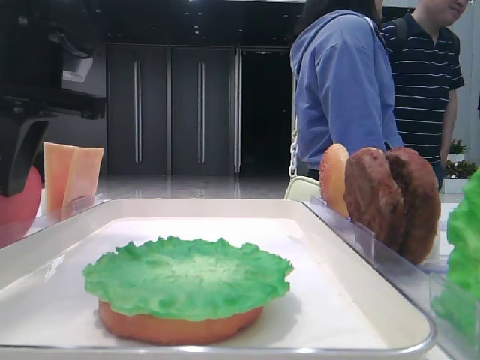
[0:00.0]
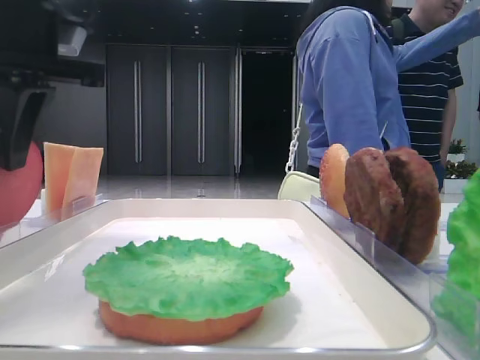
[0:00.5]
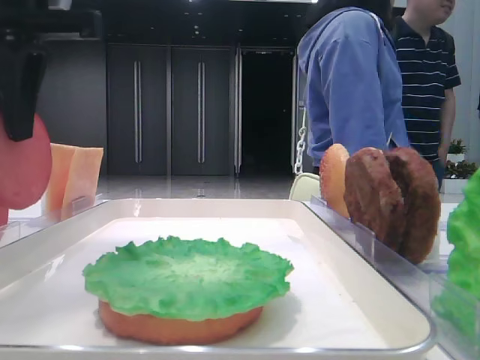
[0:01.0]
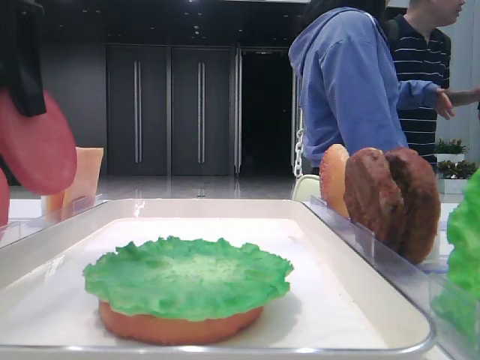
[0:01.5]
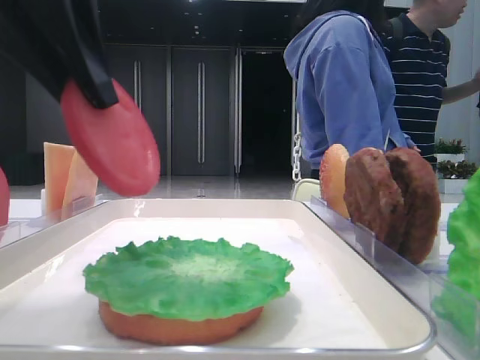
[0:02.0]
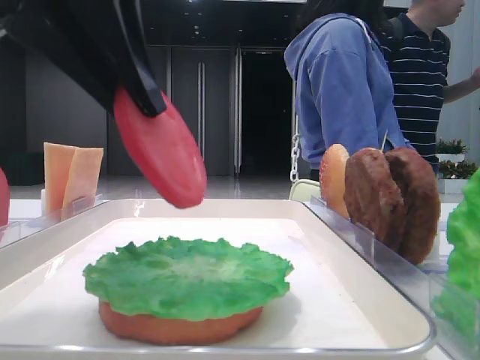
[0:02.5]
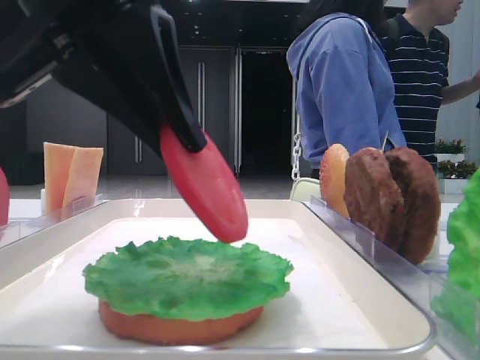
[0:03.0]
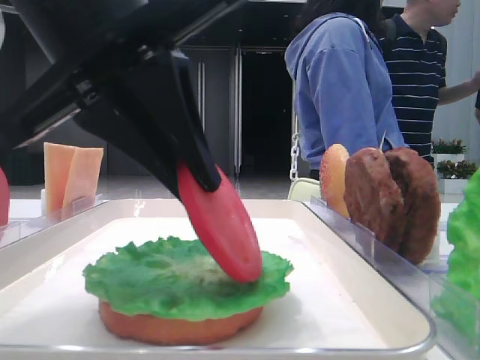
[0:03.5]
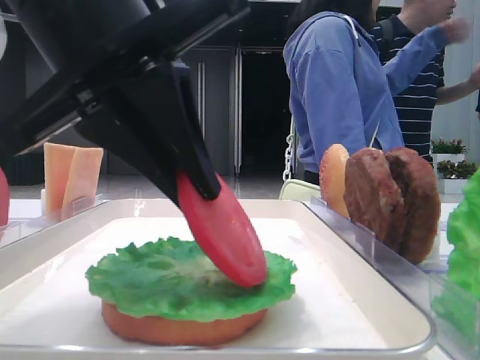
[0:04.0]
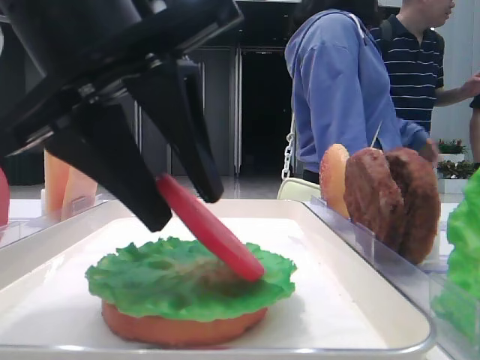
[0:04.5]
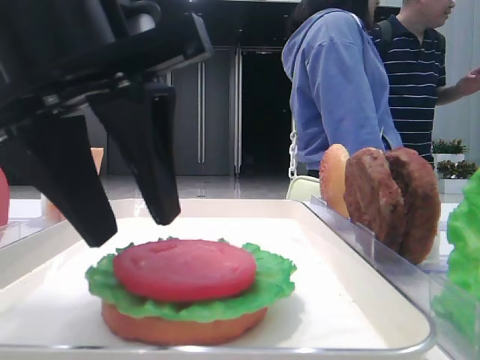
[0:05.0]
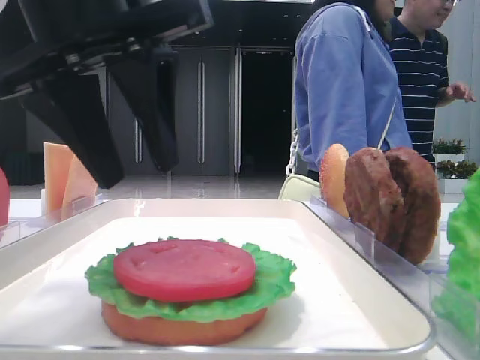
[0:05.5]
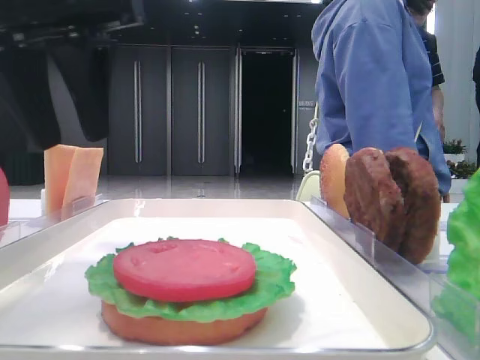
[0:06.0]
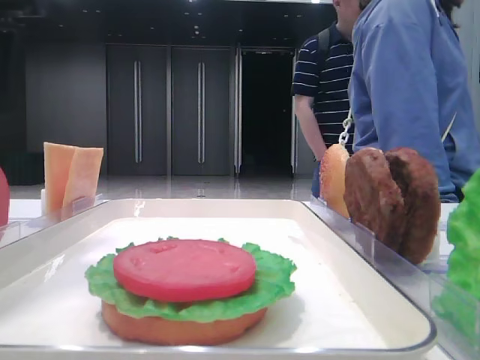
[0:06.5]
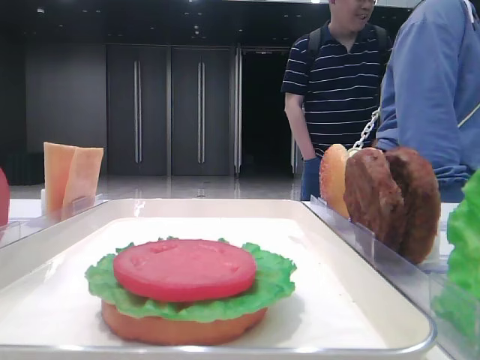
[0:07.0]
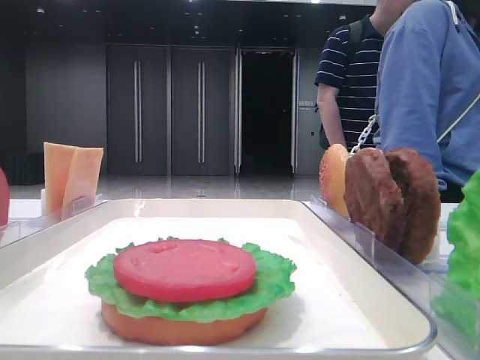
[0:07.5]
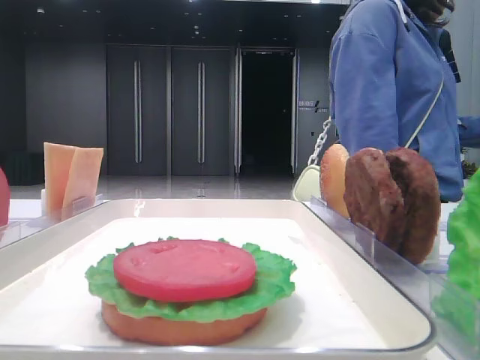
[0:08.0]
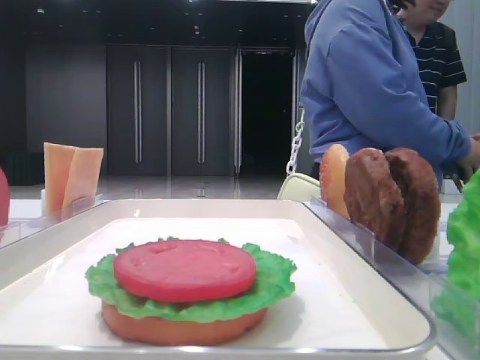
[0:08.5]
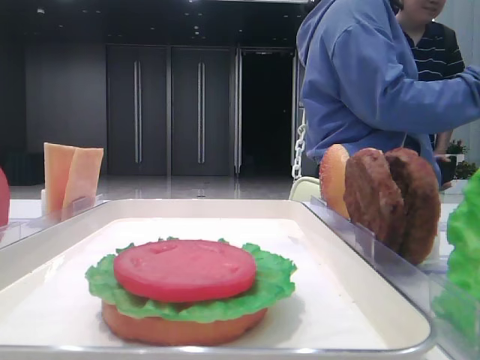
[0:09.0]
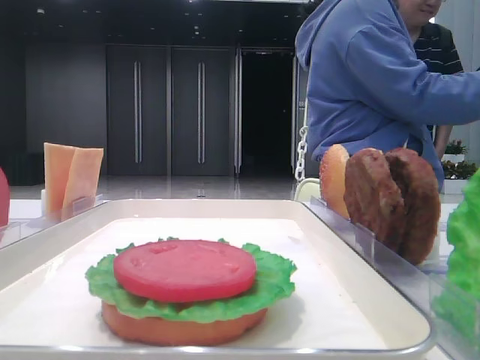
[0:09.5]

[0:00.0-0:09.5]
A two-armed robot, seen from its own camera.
Step, 0:00.5 to 0:04.5: Place the tomato slice on the lettuce leaf with the left hand.
0:00.0 to 0:02.0: The left gripper travels backward by approximately 10 cm.
0:02.0 to 0:04.0: The left gripper moves downward, about 5 cm.
0:04.0 to 0:05.5: The left gripper opens.
0:05.5 to 0:07.5: The left gripper is displaced to the left by about 15 cm.
0:07.5 to 0:09.5: The left gripper shifts approximately 20 cm backward.

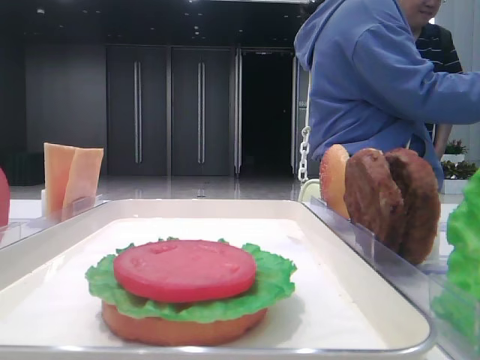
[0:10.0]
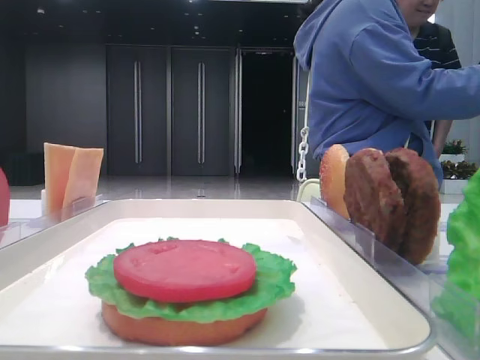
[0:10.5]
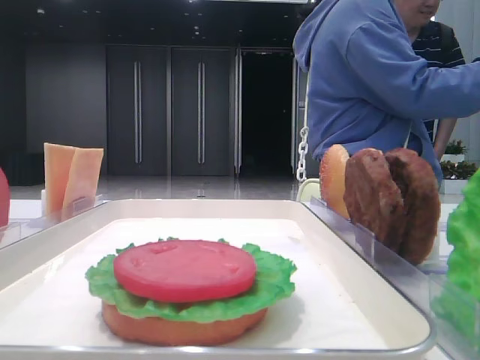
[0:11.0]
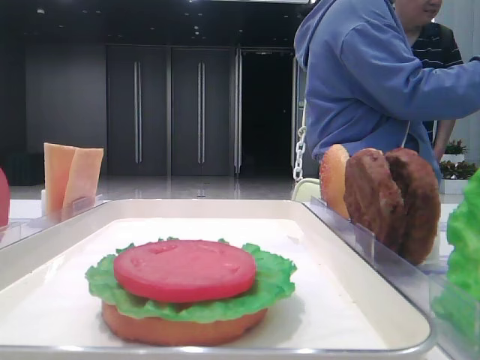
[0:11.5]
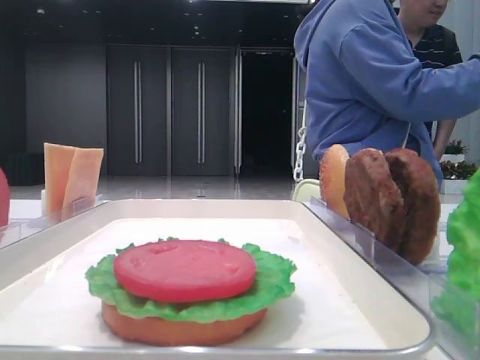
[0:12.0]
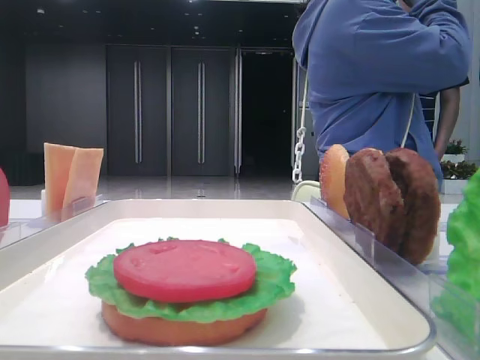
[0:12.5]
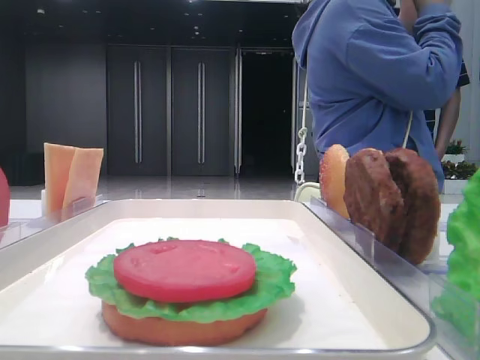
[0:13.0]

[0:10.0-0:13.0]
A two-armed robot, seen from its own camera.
0:10.0 to 0:11.5: The grippers stay close to where they were, moving slightly.
0:11.5 to 0:13.0: Both grippers stay about where they are.
